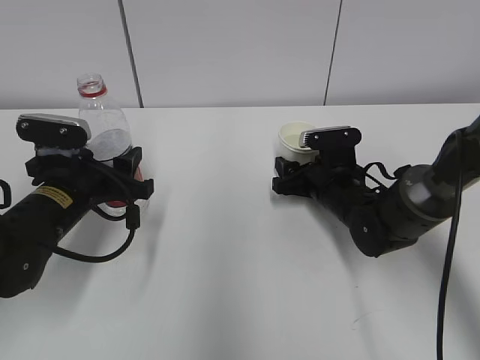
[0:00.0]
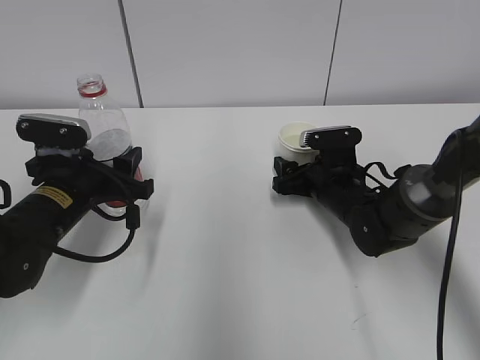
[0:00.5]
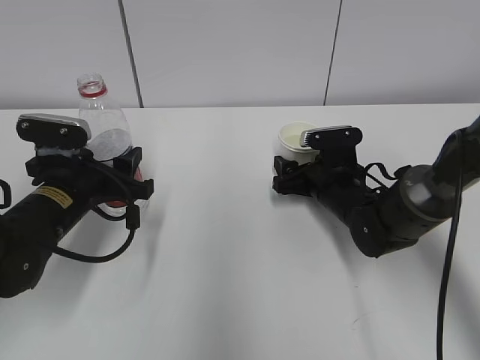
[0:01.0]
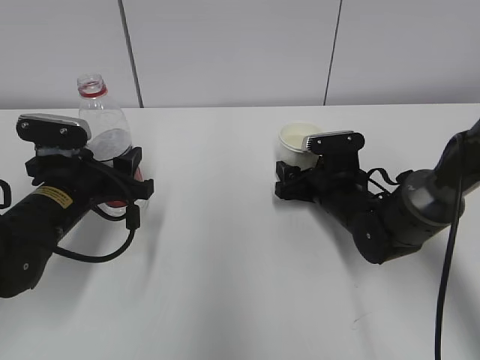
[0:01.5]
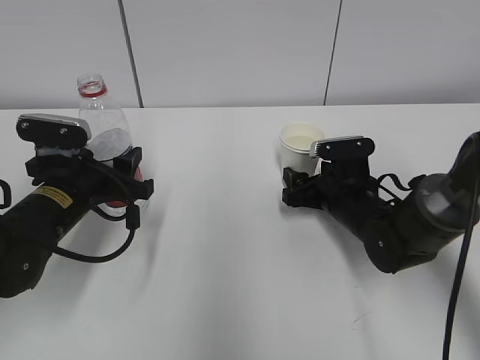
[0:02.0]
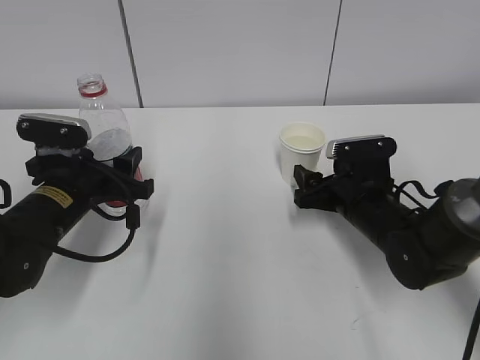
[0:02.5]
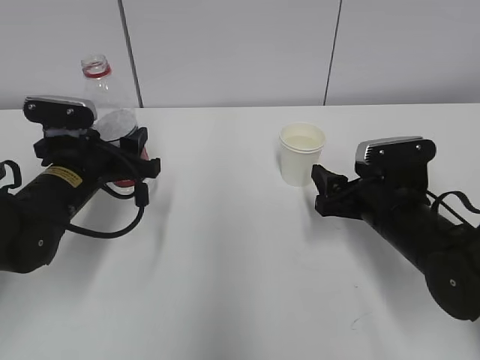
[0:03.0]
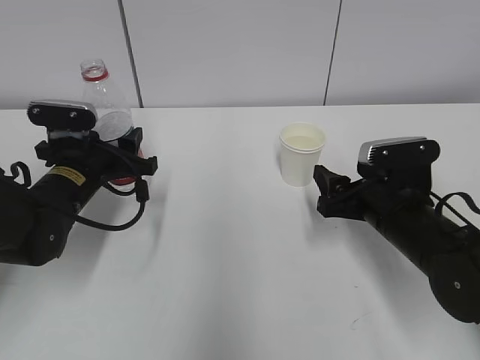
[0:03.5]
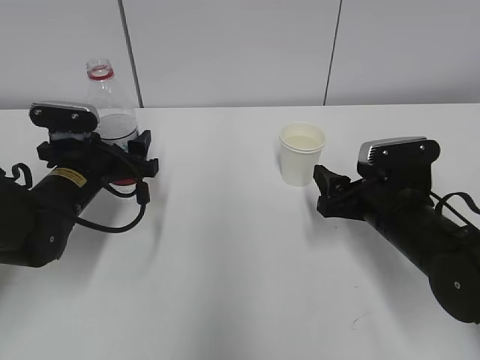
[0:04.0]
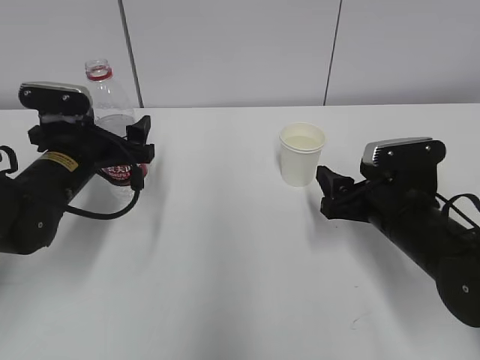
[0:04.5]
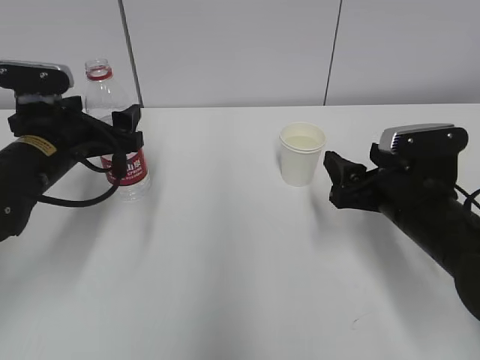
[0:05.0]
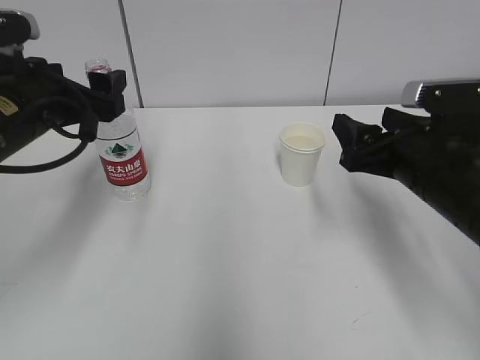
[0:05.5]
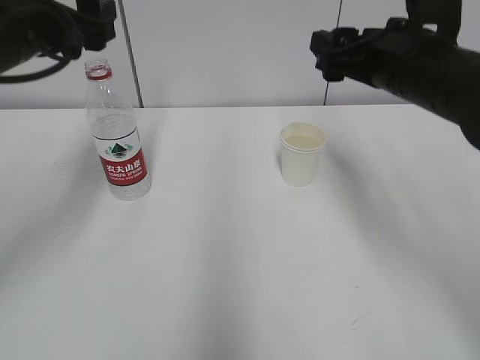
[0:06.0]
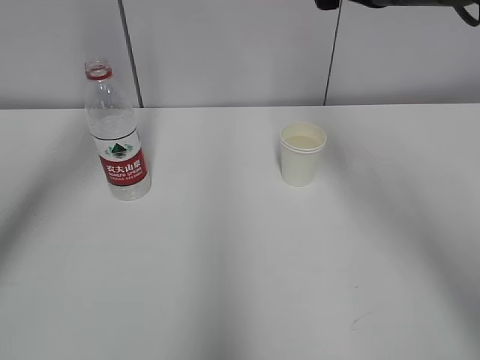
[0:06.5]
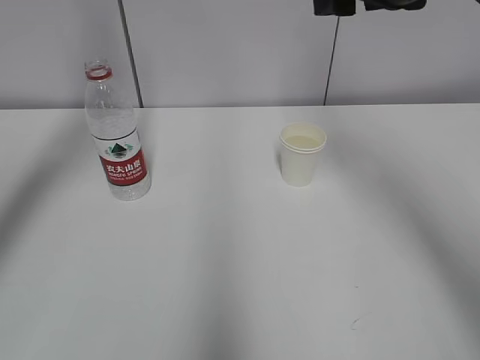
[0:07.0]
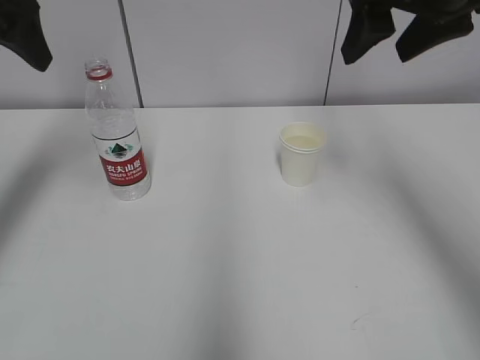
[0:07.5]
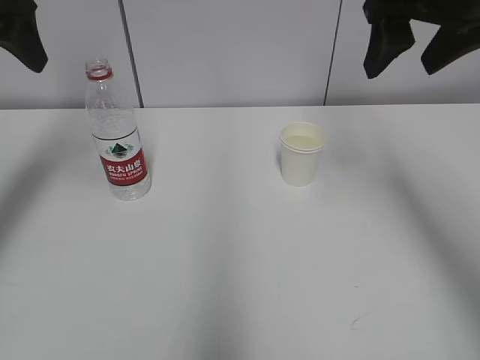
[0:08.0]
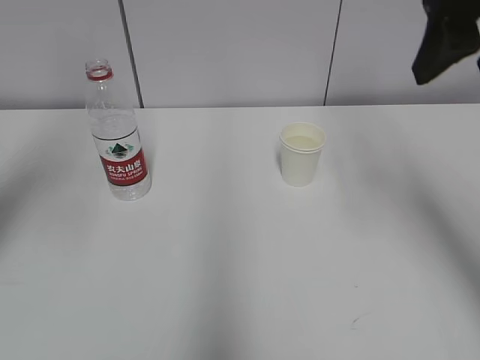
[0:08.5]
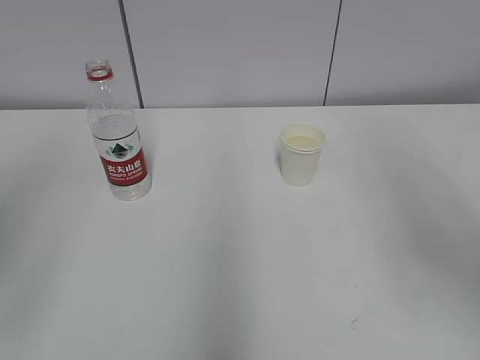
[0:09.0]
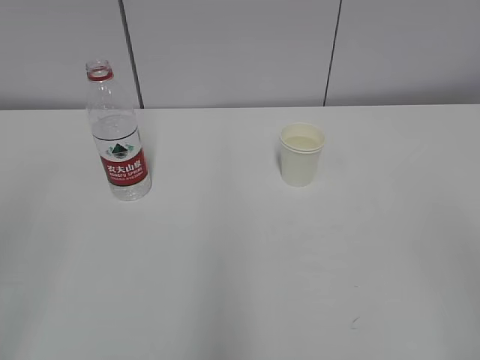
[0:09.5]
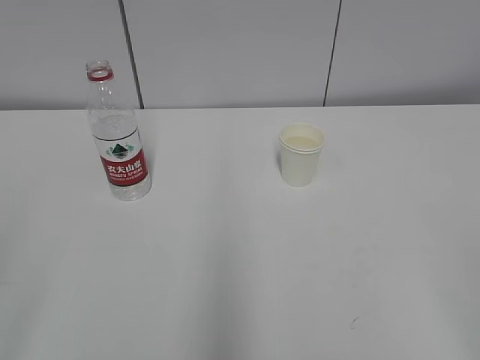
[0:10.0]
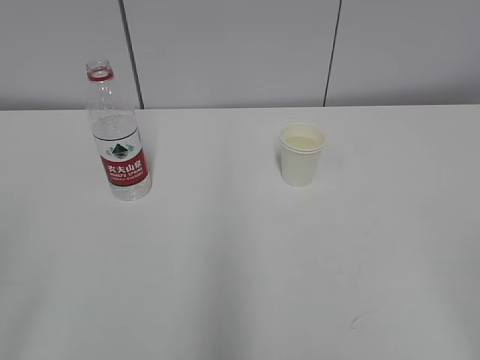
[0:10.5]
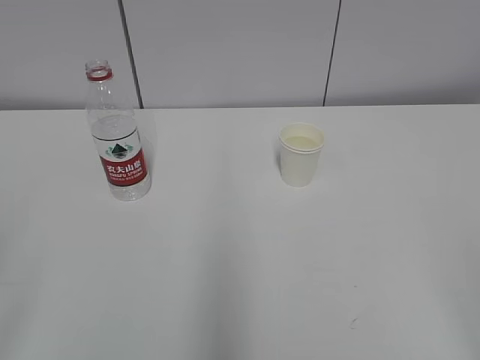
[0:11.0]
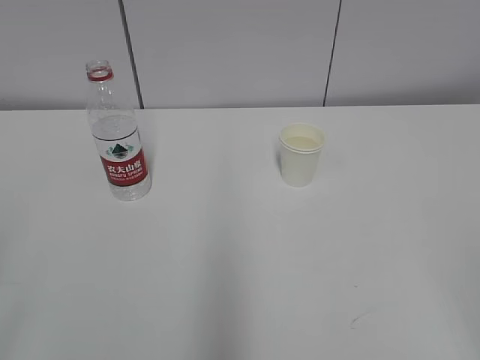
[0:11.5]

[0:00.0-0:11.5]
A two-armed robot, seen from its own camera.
0:00.0 to 0:02.0: The right gripper opens.
0:02.0 to 0:04.0: The left gripper opens up. Meanwhile the right gripper is displaced backward by roughly 10 cm.
0:04.0 to 0:06.0: The two grippers go roughly 20 cm upward.
0:06.0 to 0:07.5: The left gripper heads upward and to the left, covering approximately 10 cm. The right gripper heads upward, covering approximately 10 cm.
0:07.5 to 0:09.5: The grippers both shift backward by roughly 30 cm.

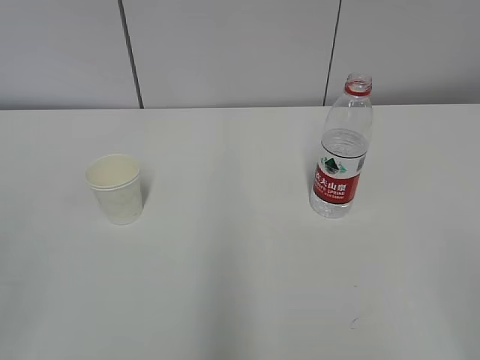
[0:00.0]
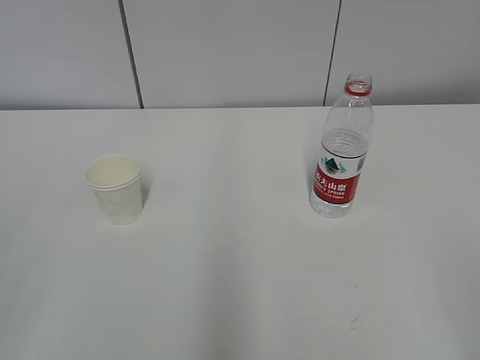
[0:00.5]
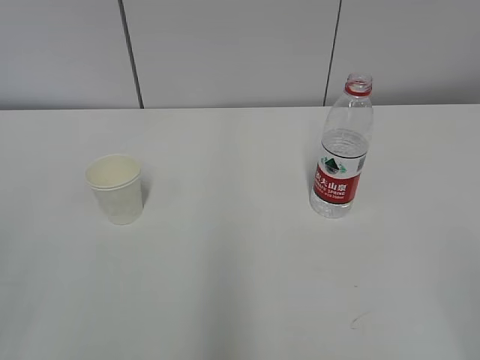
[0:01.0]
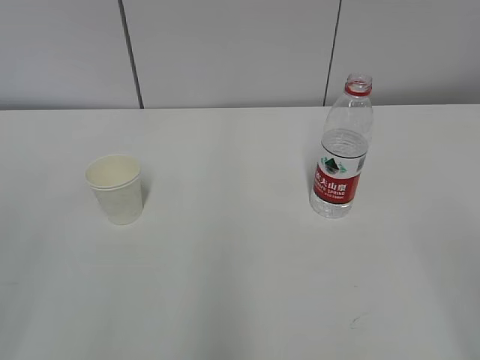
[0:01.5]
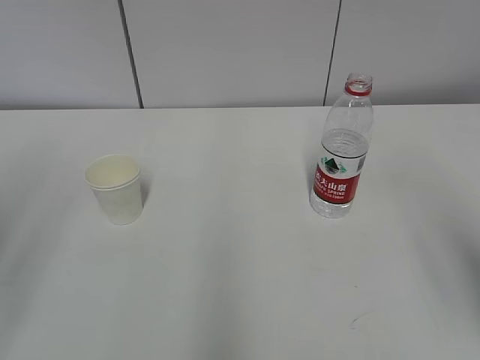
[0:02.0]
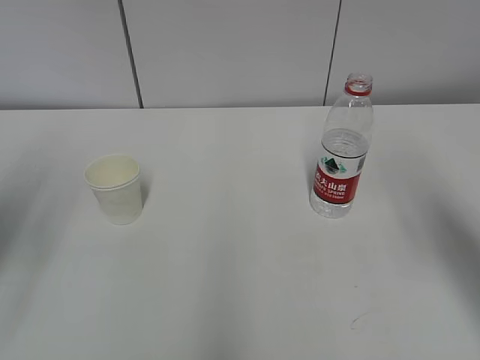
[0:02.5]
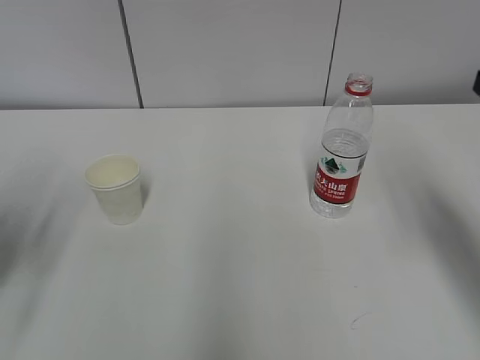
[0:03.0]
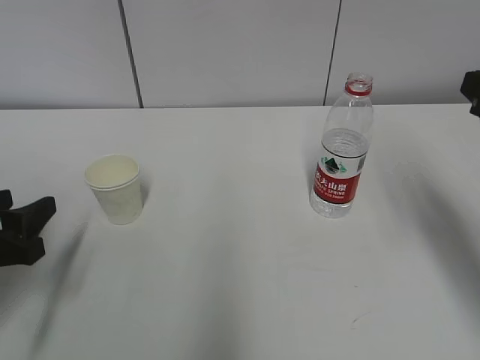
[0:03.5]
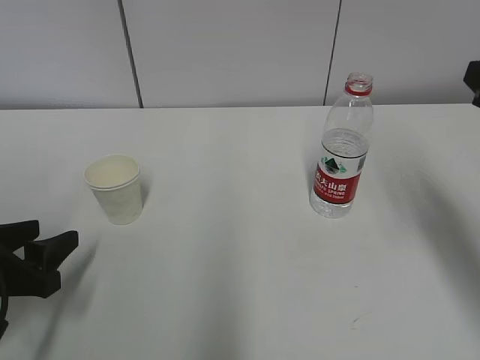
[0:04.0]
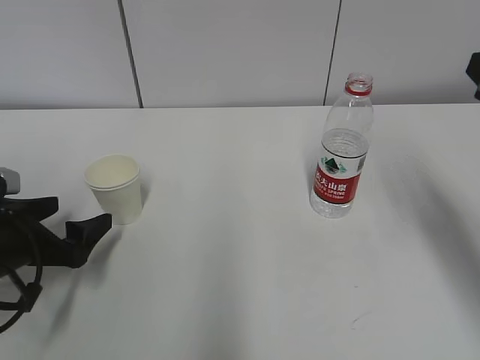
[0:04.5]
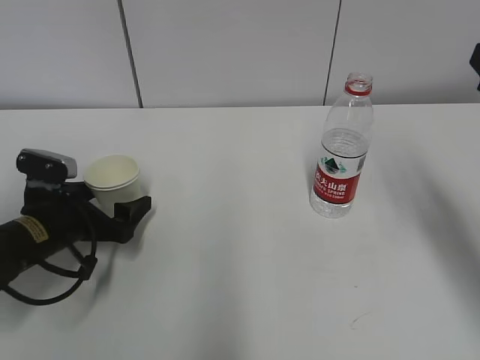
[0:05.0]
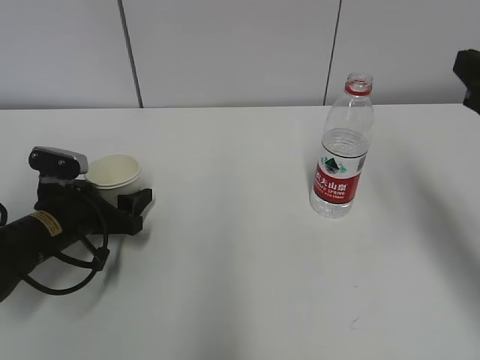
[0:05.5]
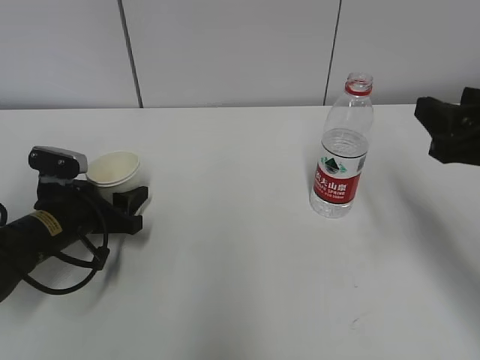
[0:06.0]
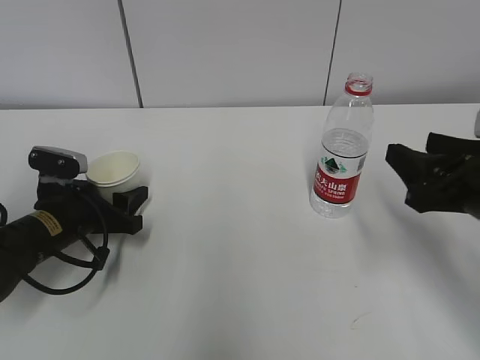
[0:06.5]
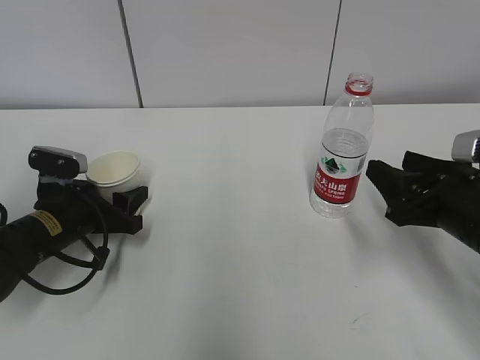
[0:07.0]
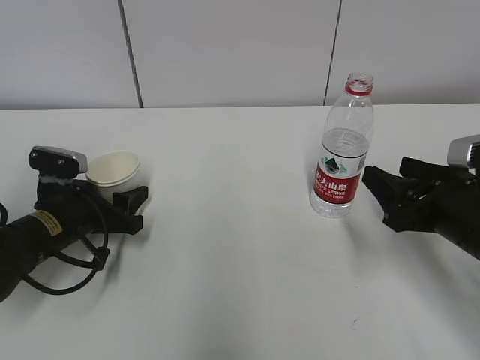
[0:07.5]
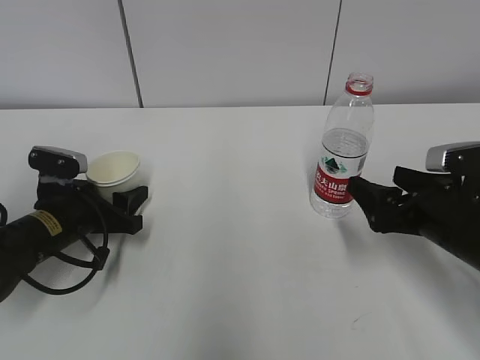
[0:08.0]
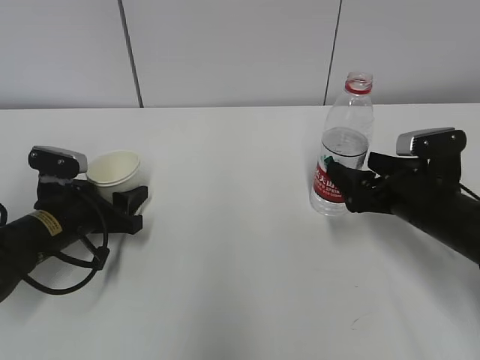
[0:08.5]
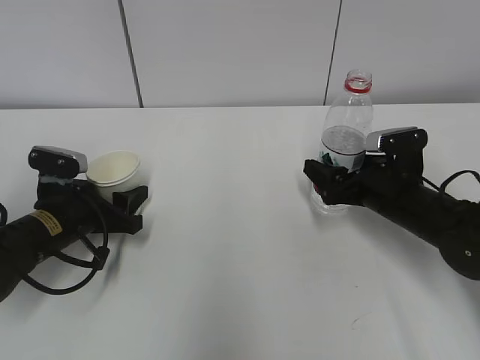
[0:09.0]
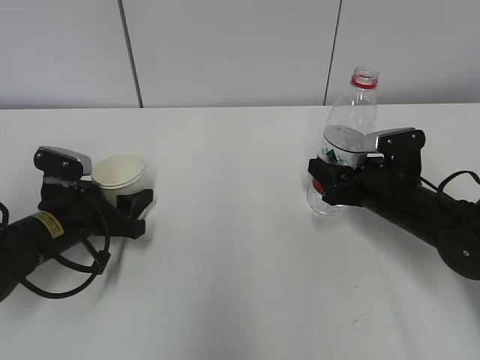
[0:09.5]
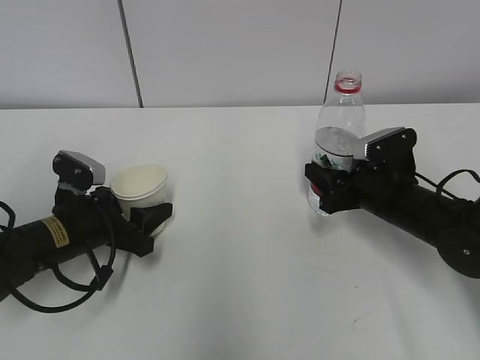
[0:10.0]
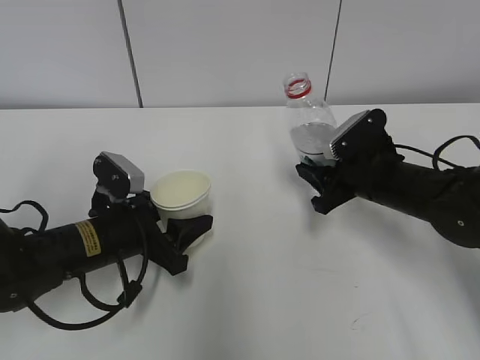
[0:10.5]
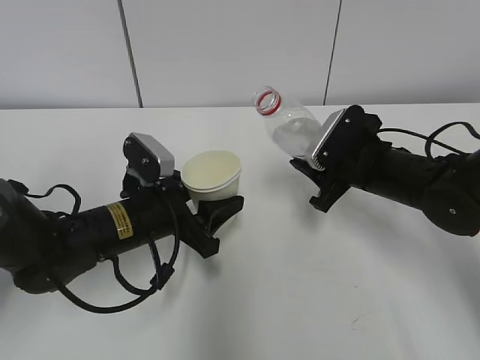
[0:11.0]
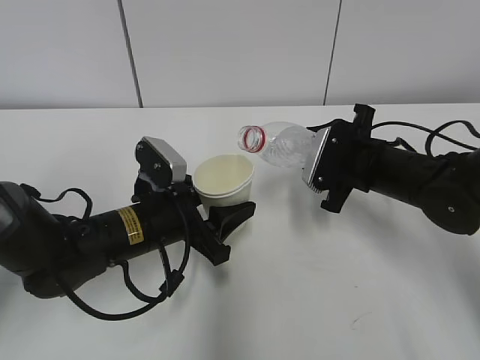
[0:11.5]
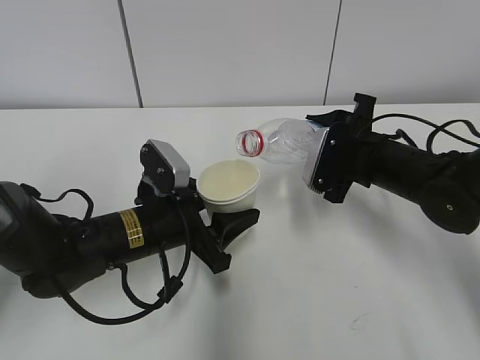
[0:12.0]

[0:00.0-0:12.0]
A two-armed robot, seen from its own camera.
Step, 0:00.0 to 0:04.5: Grab the paper cup with the left hand.
Step, 0:05.0 to 0:08.0: Grab the water bottle with the right hand.
Step, 0:08.5 to 0:11.0: Lift the paper cup with the left hand.
0:02.0 to 0:04.0: The right gripper shifts approximately 15 cm forward, while the left gripper travels downward and forward by approximately 25 cm.
0:04.0 to 0:06.0: The left gripper is displaced forward by approximately 10 cm, and opens, then closes again.
0:06.0 to 0:08.0: The right gripper is displaced downward by roughly 10 cm, and opens its fingers.
0:08.0 to 0:10.0: The right gripper heads forward, covering about 10 cm, and closes its fingers.
0:10.0 to 0:12.0: The left gripper moves to the right, about 10 cm, while the right gripper moves upward, some 5 cm.

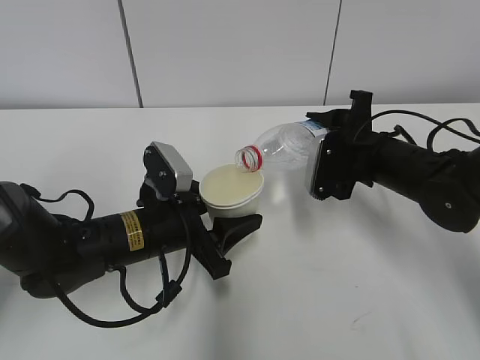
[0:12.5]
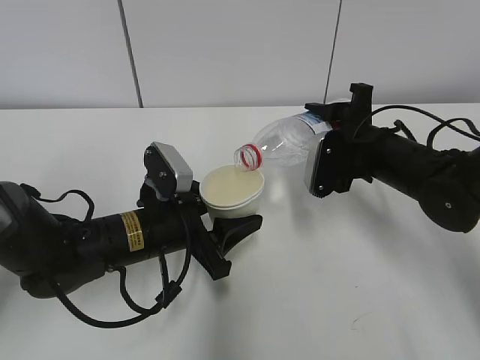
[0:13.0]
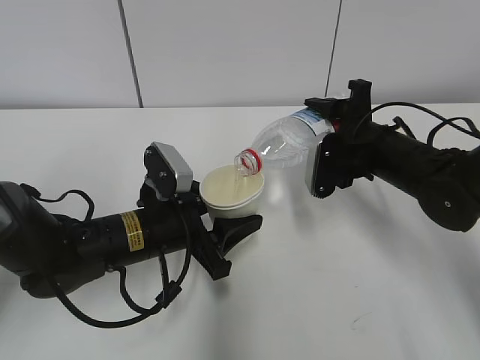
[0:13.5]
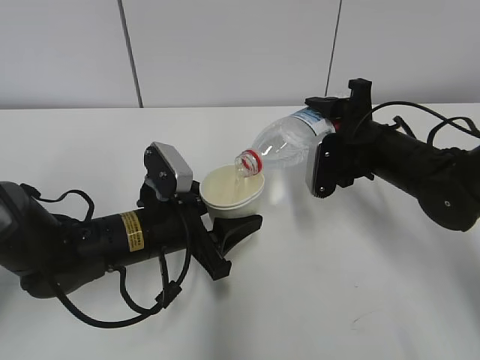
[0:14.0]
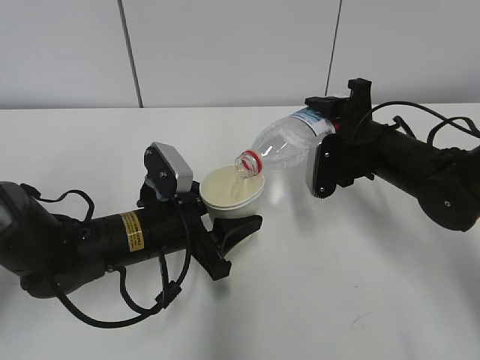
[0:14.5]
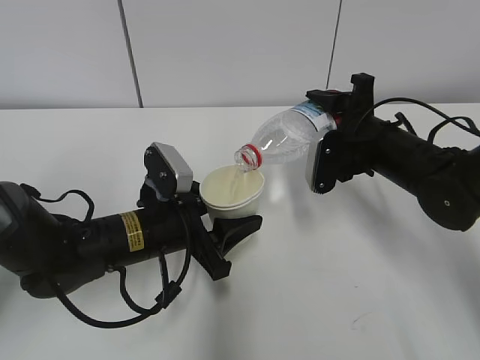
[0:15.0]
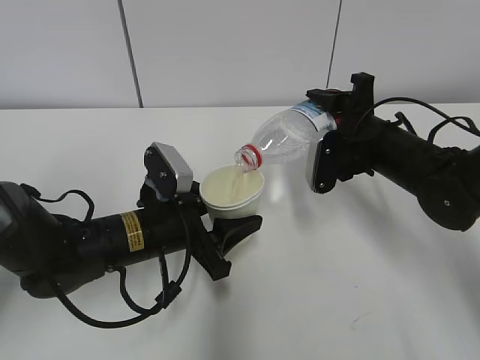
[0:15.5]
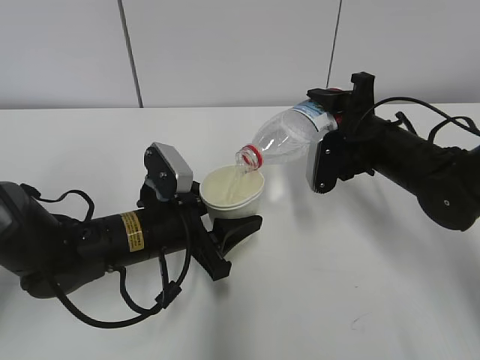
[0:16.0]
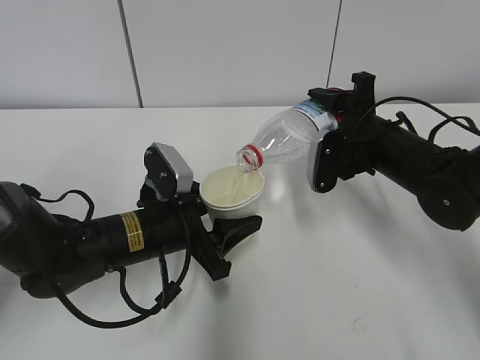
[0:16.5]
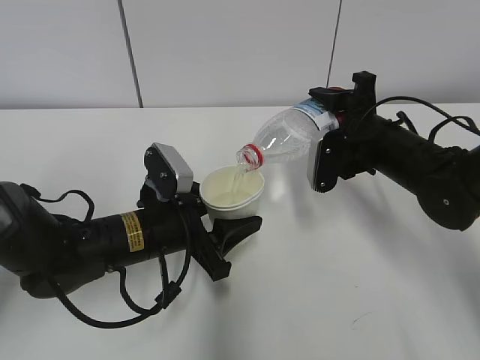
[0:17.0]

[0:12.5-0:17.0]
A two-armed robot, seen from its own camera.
Step, 0:12.5 to 0:15.0: Pour water with the right hand.
0:12.5 to 0:14.5: There are only small adjustments of the grippers.
0:14.5 to 0:17.0: The two grippers keep their place.
